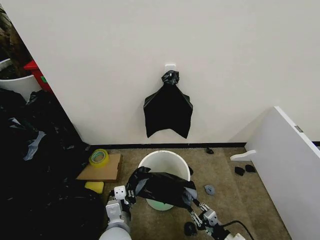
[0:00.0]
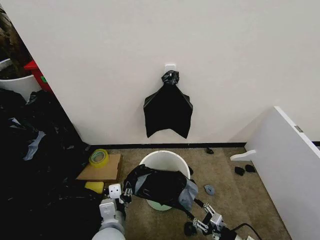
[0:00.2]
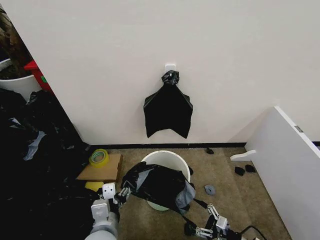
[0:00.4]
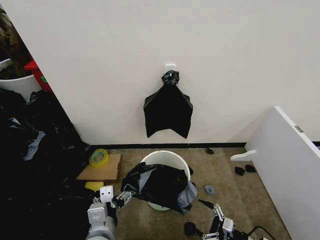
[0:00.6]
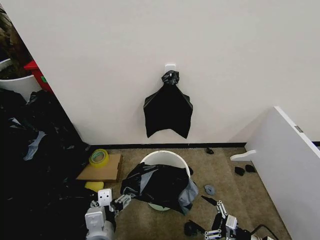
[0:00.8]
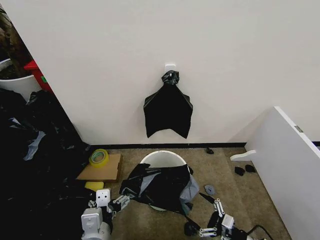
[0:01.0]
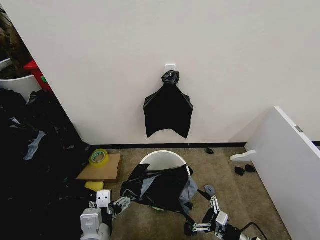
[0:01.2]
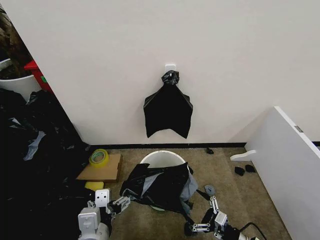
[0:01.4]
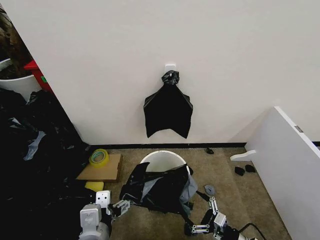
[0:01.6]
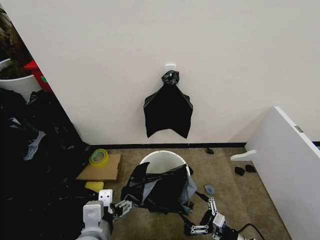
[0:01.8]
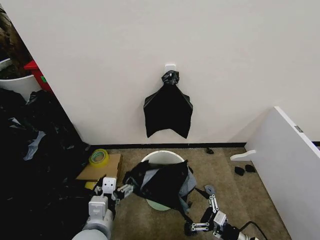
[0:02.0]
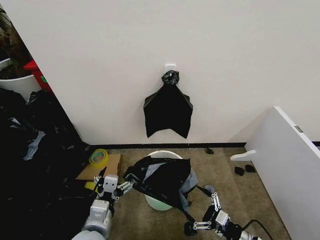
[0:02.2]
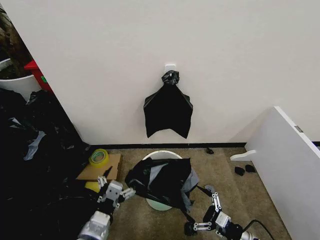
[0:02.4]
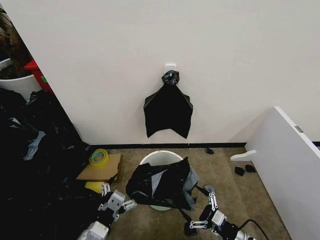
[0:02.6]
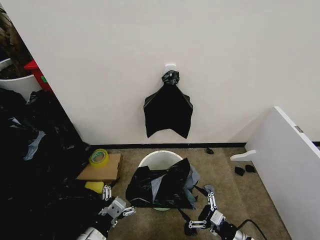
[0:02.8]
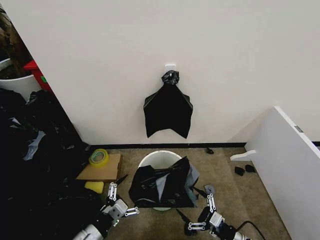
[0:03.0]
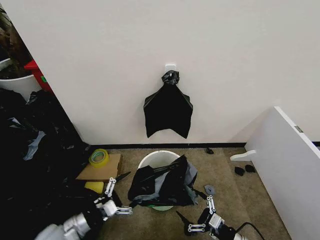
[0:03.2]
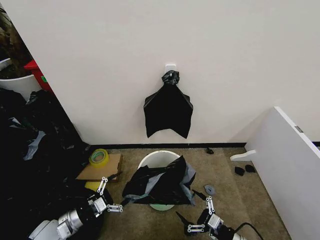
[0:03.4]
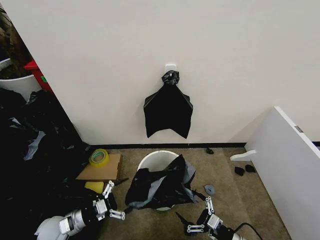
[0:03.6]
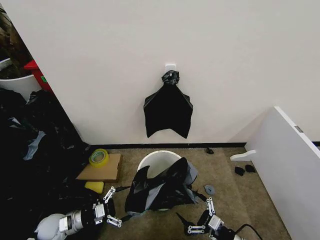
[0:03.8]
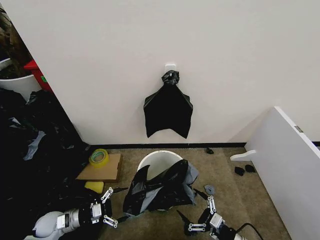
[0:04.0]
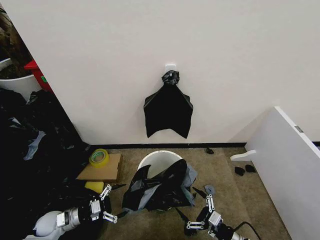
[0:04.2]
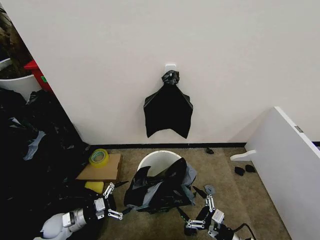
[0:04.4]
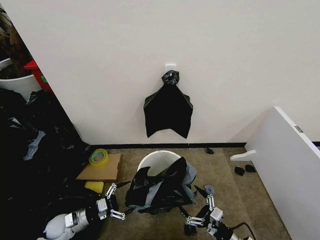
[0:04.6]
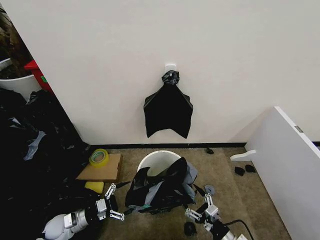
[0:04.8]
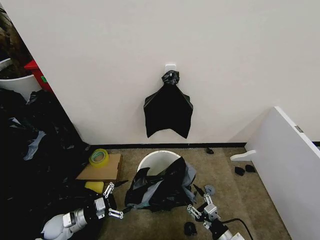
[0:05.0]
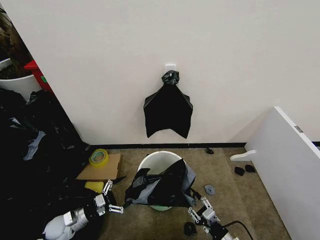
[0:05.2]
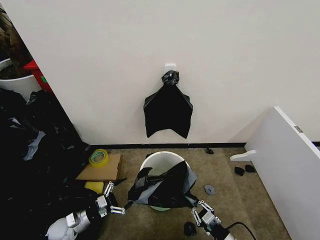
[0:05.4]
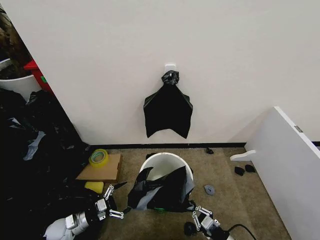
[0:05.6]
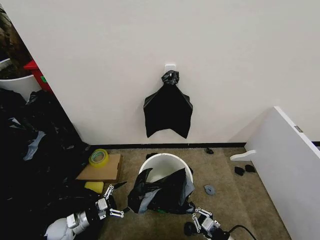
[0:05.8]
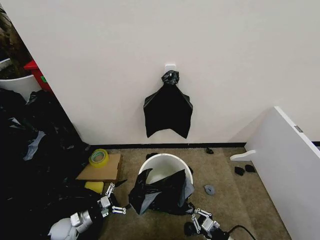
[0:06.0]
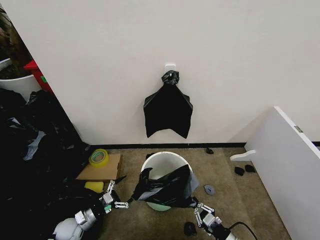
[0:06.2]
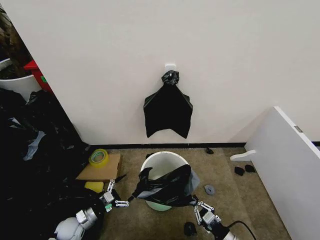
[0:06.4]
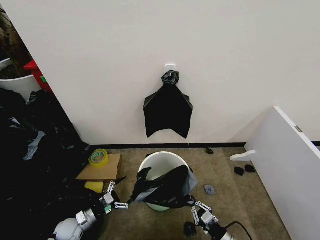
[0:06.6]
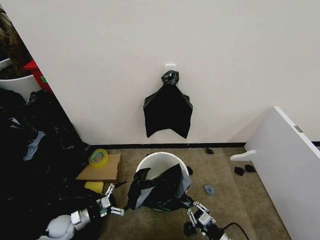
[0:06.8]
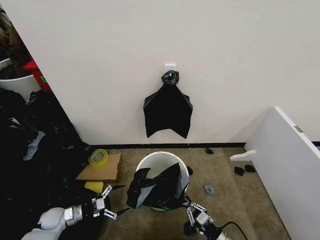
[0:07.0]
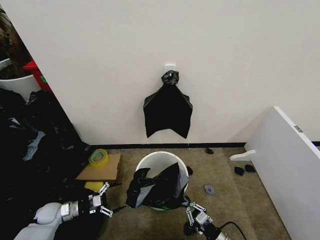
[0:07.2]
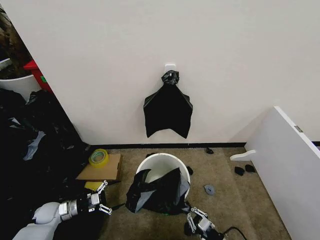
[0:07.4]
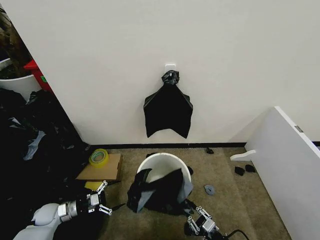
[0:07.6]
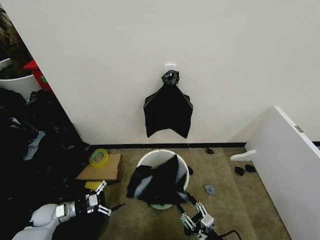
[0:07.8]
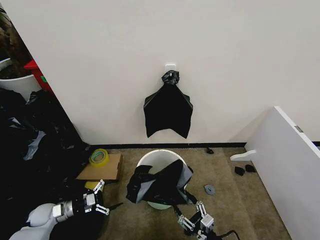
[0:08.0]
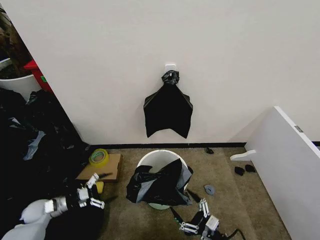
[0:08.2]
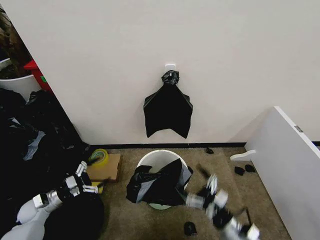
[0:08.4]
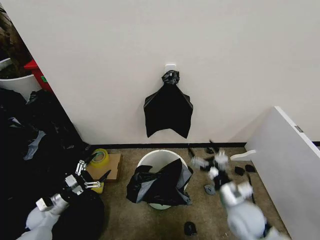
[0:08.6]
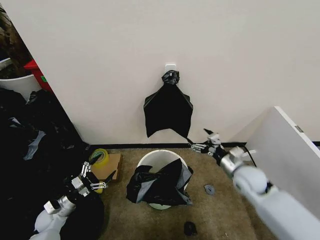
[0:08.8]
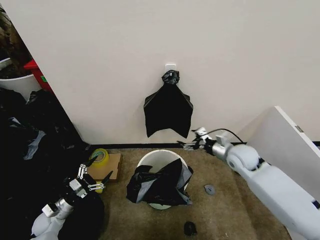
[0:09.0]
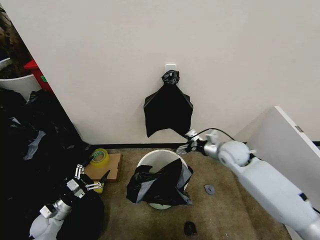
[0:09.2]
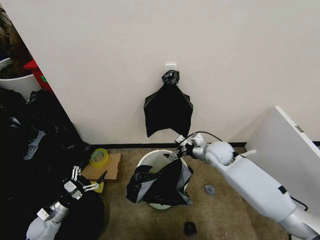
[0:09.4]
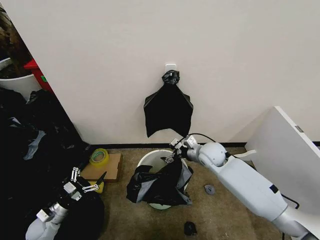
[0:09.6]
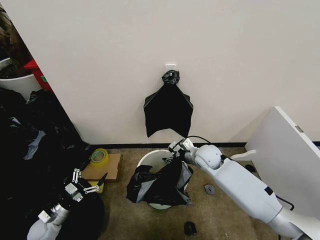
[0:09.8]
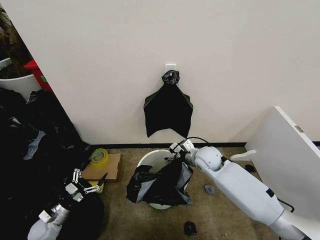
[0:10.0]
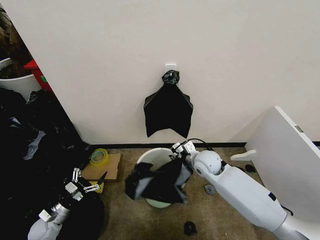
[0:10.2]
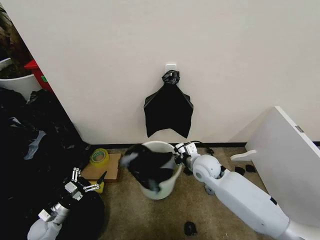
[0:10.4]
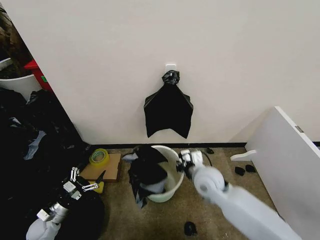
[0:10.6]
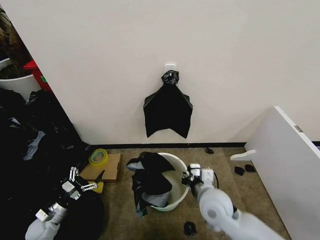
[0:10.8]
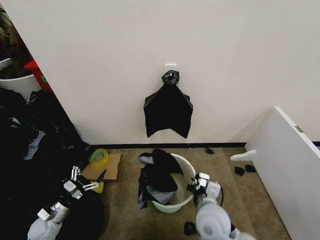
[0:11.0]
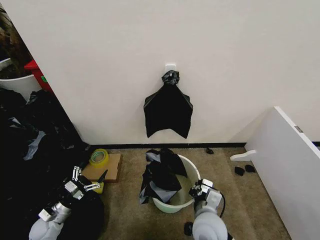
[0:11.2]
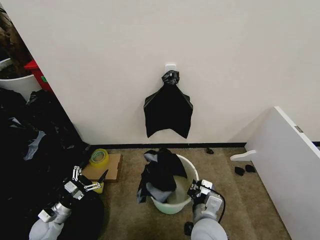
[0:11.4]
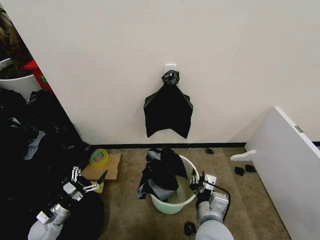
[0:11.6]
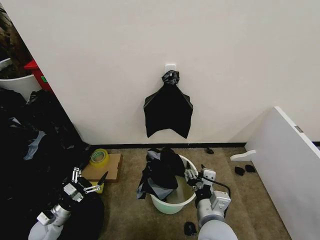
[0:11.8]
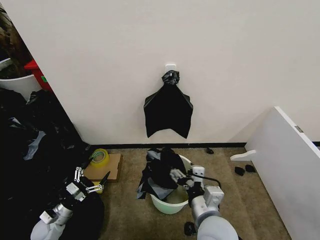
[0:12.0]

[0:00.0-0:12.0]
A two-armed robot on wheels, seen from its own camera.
Task of the whole recording: Place the garbage bag over the trash bin.
0.0 to 1.6 s: The right gripper opens its fingers; the left gripper travels upward by approximately 10 cm, and opens.
1.6 to 3.0 s: The left gripper is displaced downward and to the left by about 15 cm.
3.0 to 4.4 s: The left gripper heads downward, to the left and forward, covering roughly 25 cm.
4.4 to 6.0 s: The right gripper closes its fingers.
6.0 to 7.6 s: The left gripper goes about 5 cm to the left.
7.6 to 9.0 s: The right gripper moves forward and upward, approximately 35 cm, and opens.
9.0 to 10.4 s: The right gripper moves to the left, approximately 15 cm, and closes.
10.4 to 12.0 s: The right gripper travels backward by roughly 20 cm, and opens its fingers.

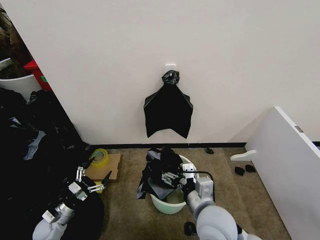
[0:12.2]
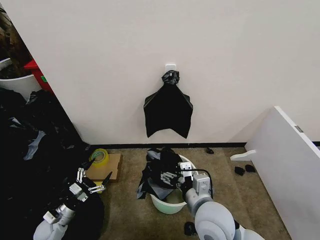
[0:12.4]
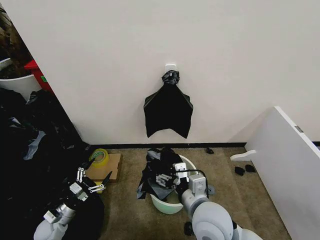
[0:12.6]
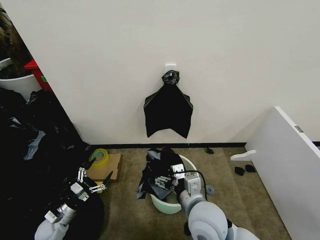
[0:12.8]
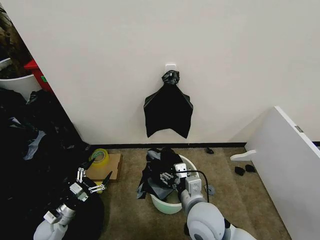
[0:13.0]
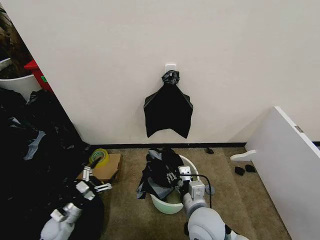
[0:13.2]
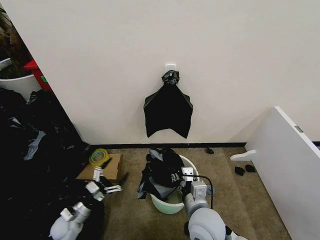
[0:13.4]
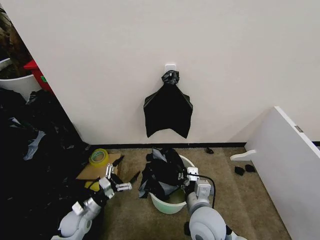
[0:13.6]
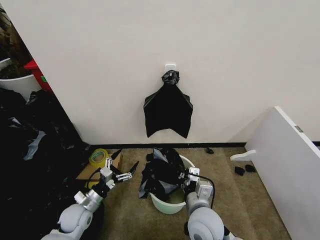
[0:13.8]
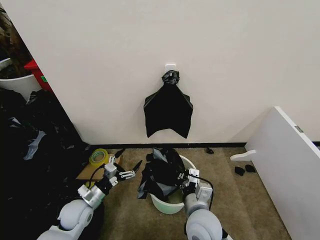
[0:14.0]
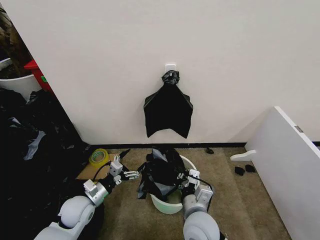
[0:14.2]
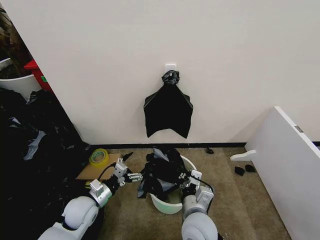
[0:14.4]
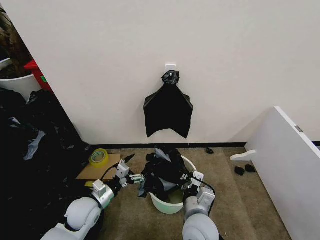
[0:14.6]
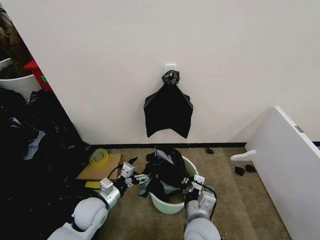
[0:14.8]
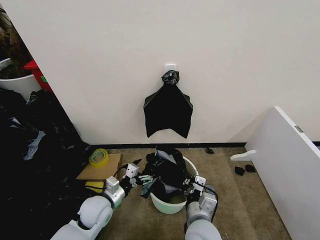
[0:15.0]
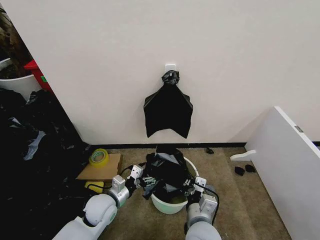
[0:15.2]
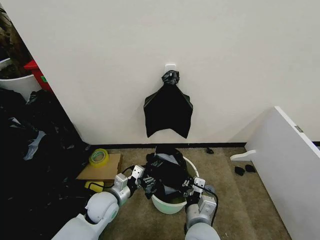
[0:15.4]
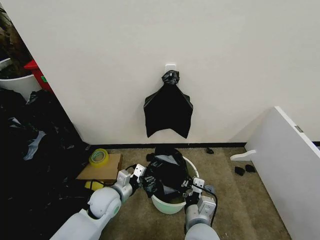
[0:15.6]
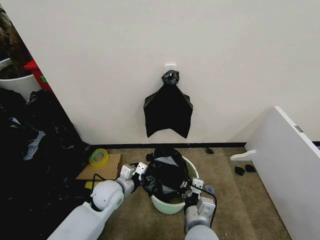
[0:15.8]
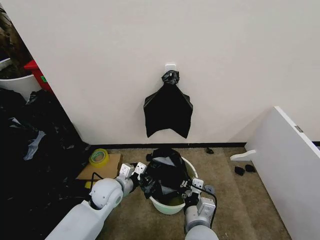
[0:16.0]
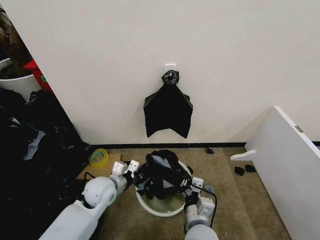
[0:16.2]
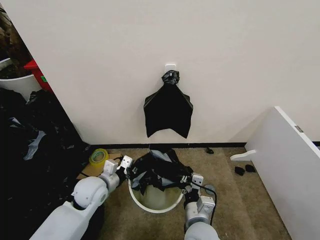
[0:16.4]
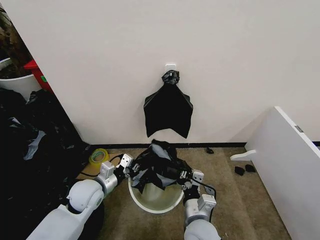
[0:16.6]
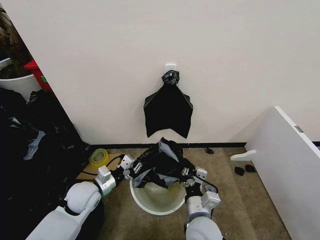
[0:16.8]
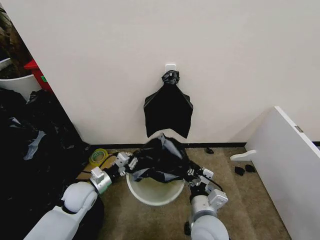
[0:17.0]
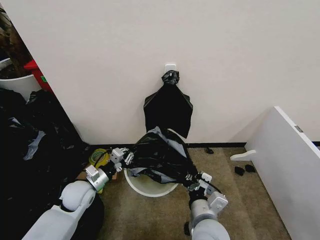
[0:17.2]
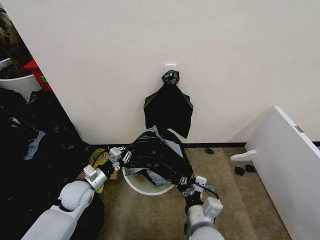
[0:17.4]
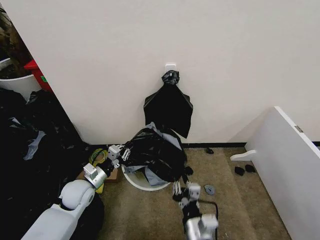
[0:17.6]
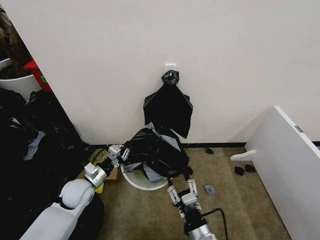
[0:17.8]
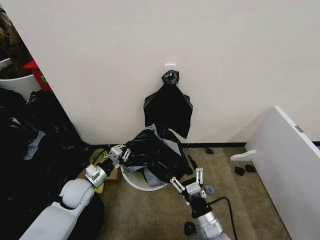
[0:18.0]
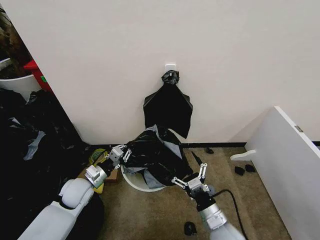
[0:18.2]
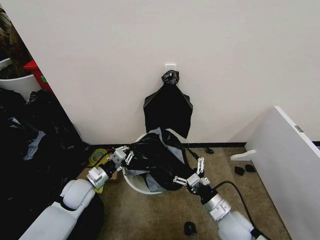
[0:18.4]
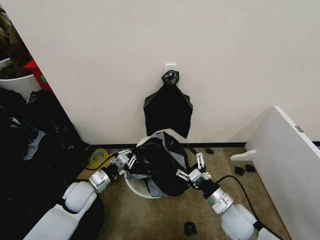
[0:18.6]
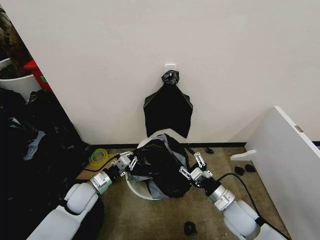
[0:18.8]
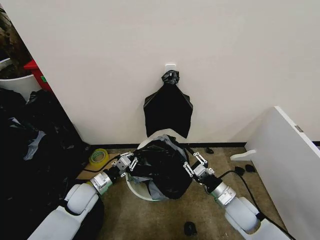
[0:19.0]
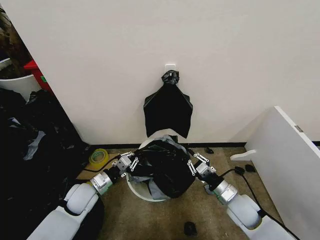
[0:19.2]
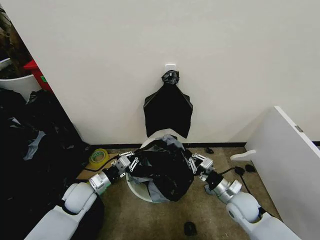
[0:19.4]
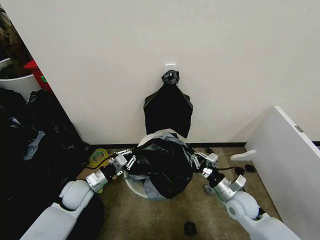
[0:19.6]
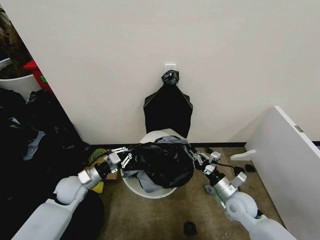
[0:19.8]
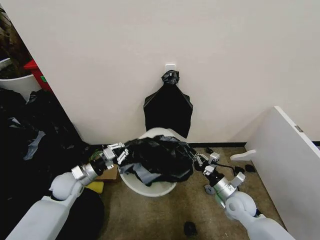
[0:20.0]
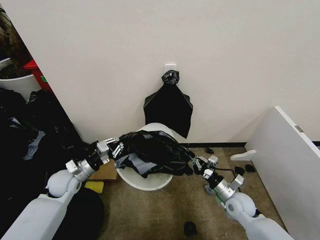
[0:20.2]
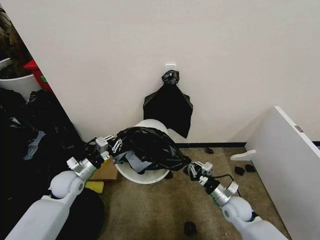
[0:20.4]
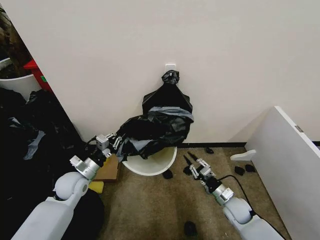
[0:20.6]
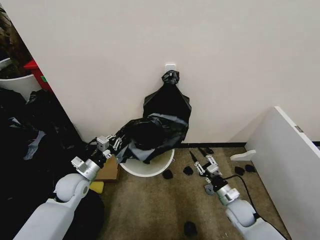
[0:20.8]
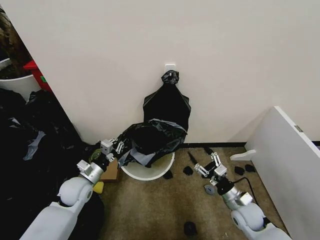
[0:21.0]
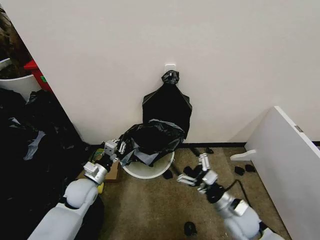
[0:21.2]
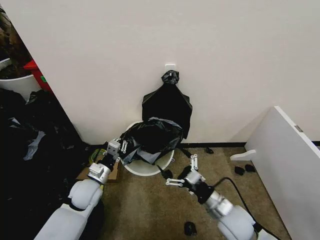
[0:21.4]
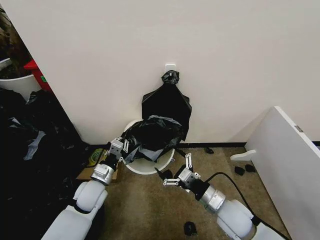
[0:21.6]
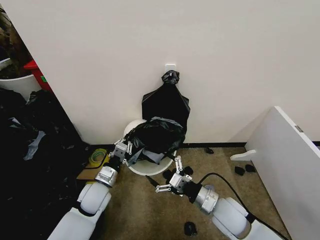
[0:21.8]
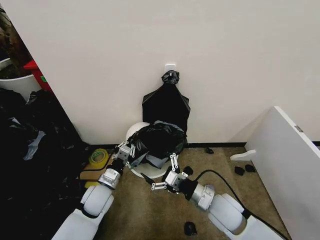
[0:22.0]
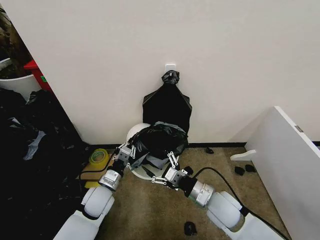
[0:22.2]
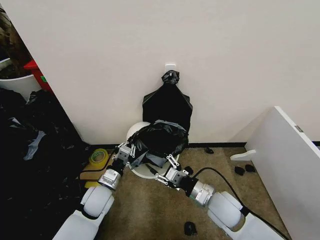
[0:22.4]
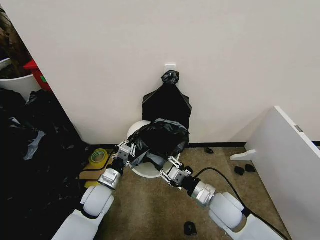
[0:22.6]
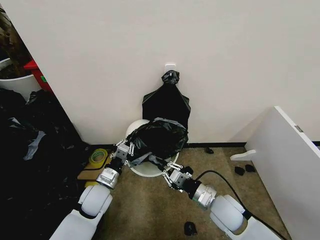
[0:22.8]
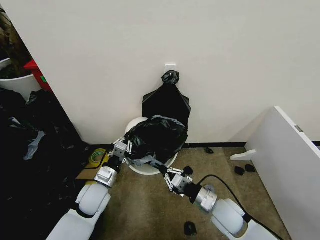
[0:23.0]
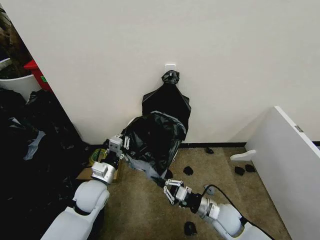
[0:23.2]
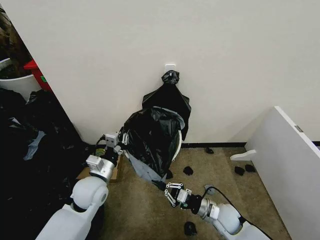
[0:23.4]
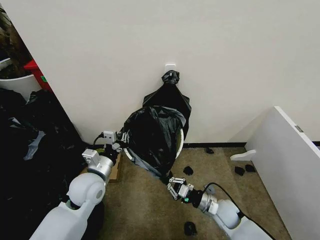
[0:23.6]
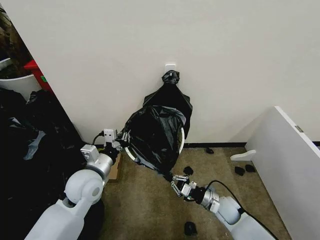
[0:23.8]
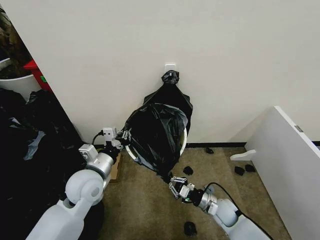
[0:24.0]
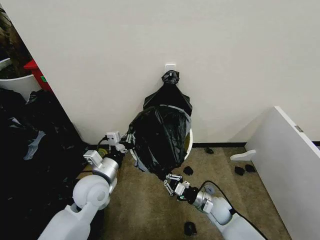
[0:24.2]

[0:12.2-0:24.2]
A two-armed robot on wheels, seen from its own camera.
Task of the whole recording: Place the garbage bag over the trash bin.
12.2 to 13.8 s: The left gripper heads to the right, covering some 10 cm, while the right gripper ends up some 5 cm from where it was, and closes.
13.8 to 15.2 s: The left gripper is displaced to the right and upward by some 10 cm.
15.2 to 16.6 s: The left gripper goes roughly 5 cm upward, and closes its fingers.
16.6 to 18.2 s: The left gripper goes about 5 cm to the left, while the right gripper is displaced to the right by about 10 cm, and opens.
18.2 to 19.8 s: The right gripper moves forward and to the right, roughly 15 cm, and closes its fingers.
19.8 to 21.2 s: The right gripper is displaced backward by roughly 5 cm, travels downward and back again, about 10 cm each way, and opens.
21.2 to 22.6 s: The left gripper travels to the right by roughly 5 cm, while the right gripper shifts by roughly 5 cm, and closes.
22.6 to 24.2 s: The left gripper travels upward by some 10 cm; the right gripper travels downward by roughly 15 cm, and closes.
